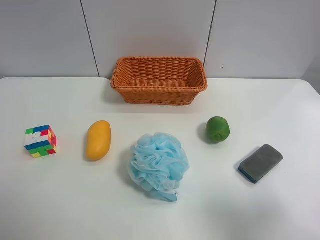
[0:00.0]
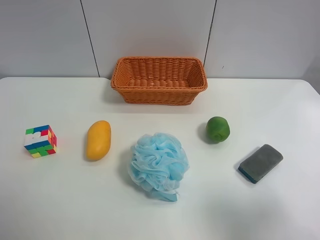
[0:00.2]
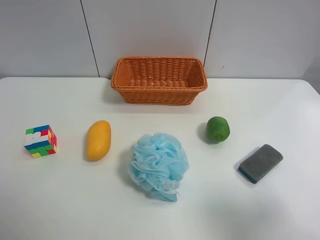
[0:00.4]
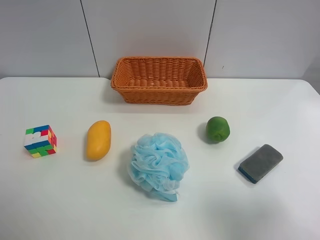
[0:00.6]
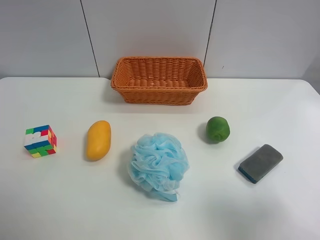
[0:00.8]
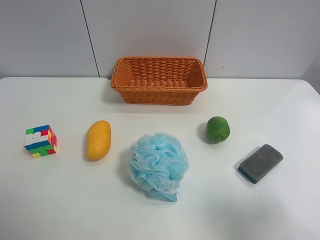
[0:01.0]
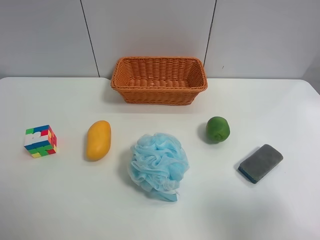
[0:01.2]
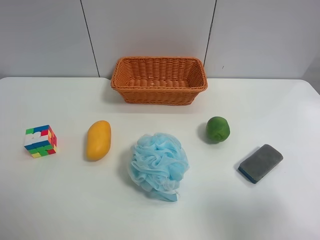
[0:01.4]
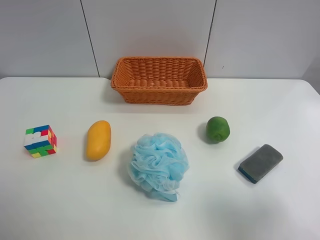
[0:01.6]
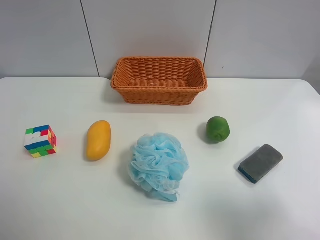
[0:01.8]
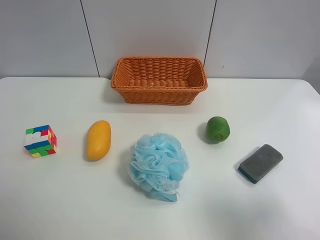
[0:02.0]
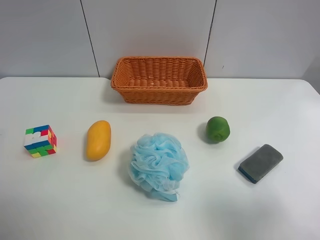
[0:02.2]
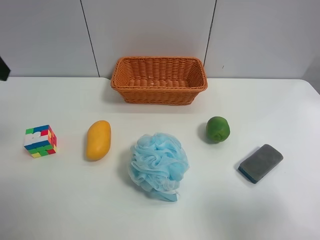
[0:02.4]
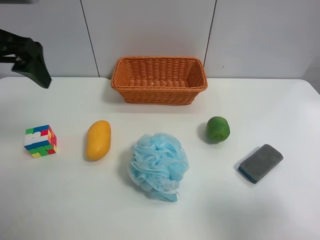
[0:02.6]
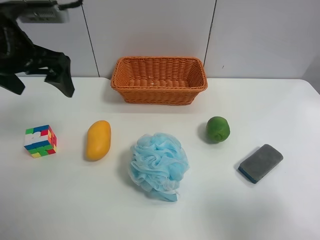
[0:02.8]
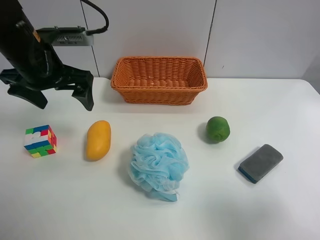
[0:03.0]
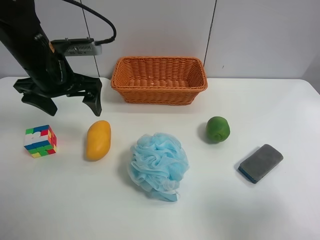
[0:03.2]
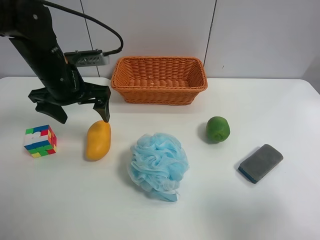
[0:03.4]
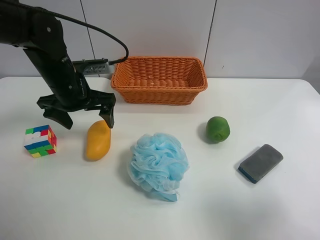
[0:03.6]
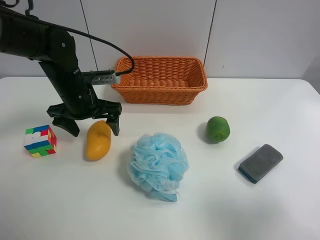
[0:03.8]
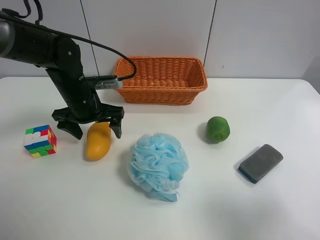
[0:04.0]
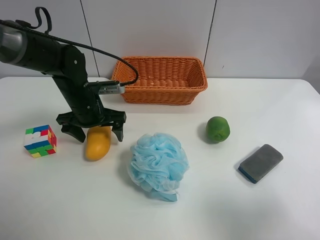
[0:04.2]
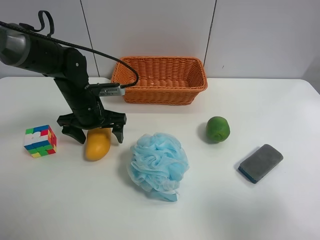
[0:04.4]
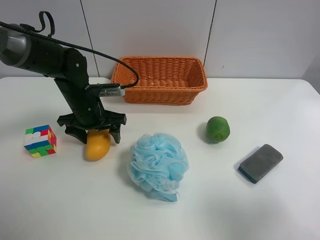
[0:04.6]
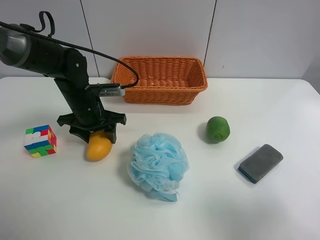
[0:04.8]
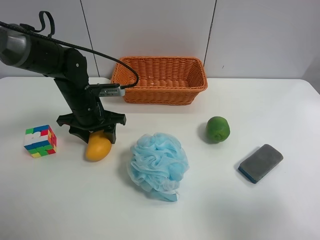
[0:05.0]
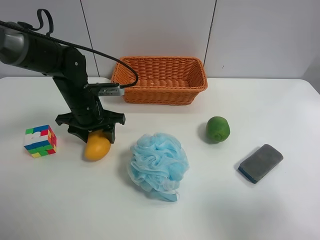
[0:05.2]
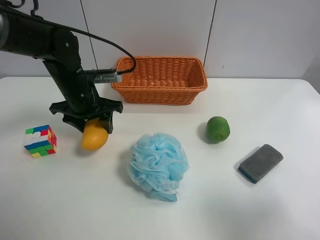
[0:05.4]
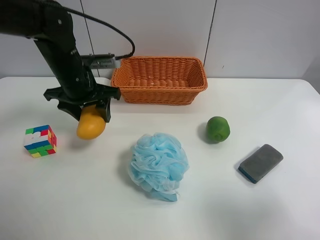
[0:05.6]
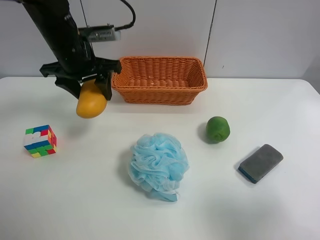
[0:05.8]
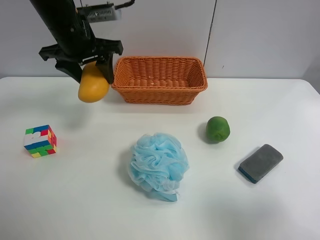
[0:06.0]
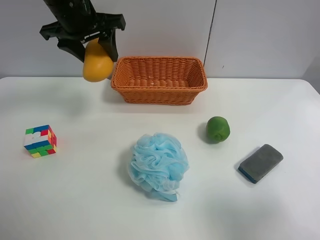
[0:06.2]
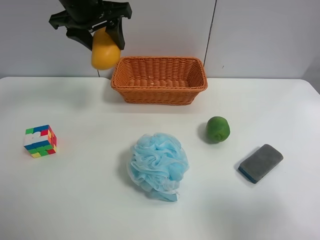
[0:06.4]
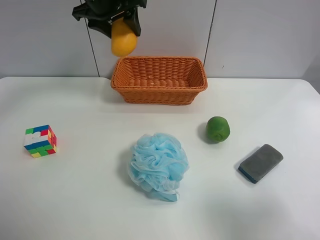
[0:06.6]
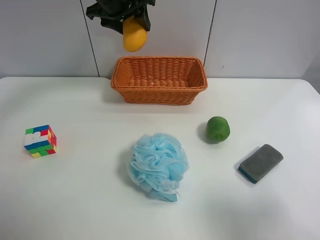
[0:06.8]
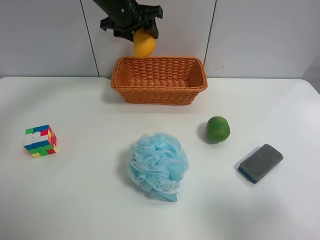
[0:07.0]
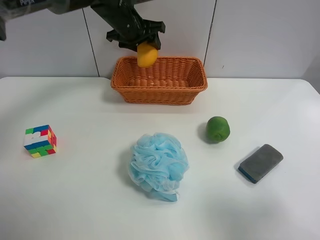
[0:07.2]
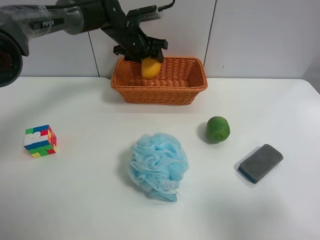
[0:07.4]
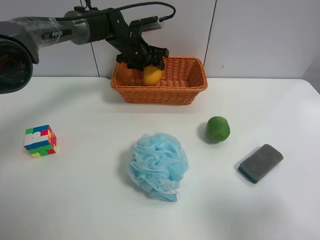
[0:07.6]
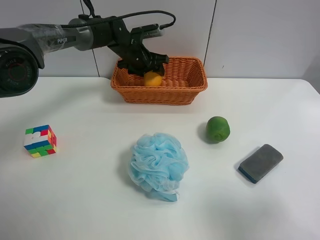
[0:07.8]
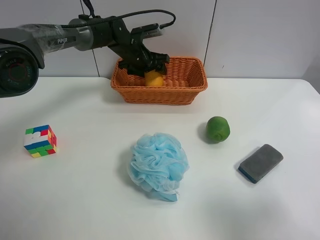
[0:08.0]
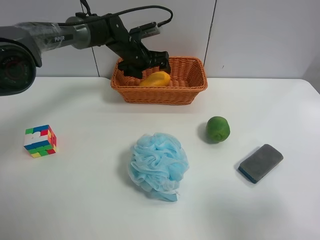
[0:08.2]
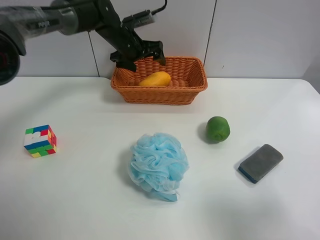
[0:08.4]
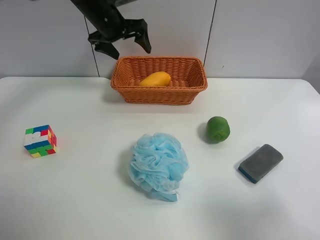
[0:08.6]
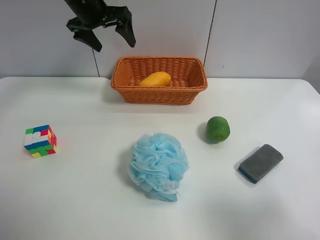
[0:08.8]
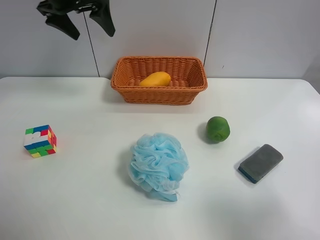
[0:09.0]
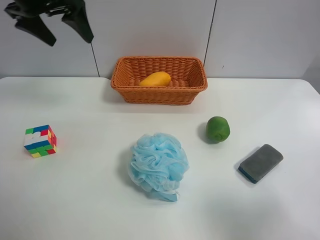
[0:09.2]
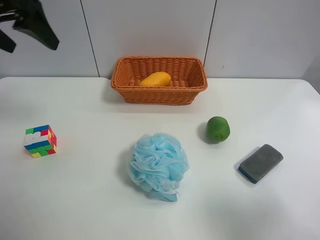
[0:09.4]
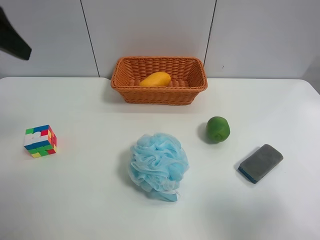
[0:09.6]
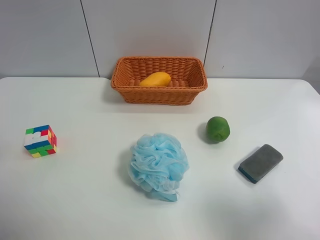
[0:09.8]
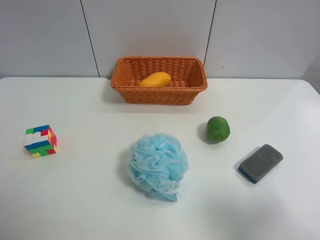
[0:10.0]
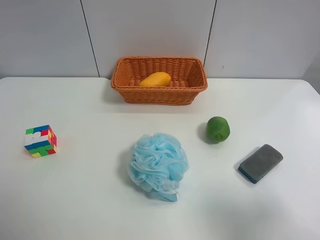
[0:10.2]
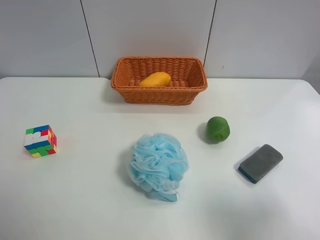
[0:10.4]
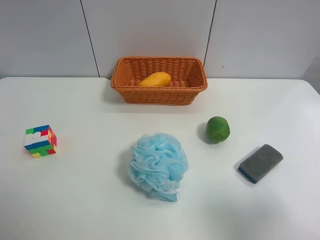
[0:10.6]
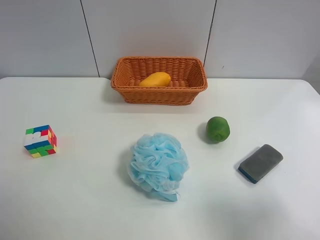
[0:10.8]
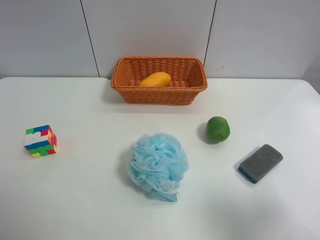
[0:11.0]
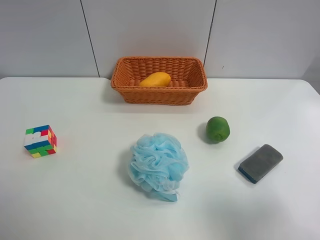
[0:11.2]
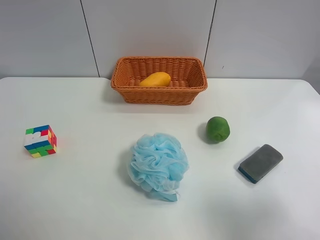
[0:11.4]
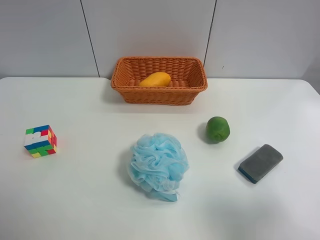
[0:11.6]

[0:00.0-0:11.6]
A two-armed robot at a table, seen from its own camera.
Task of the whole recording: use the left gripper to grab items from the table and place them in the basket.
Step, 0:00.0 to 0:04.8: Grasp the mango with the left gripper.
Step, 0:05.0 to 0:08.4: Place the mango into the basket with the left gripper.
0:01.4 to 0:02.8: The left gripper is displaced forward by about 30 cm.
0:02.8 to 0:04.4: The left gripper travels downward by approximately 15 cm.
0:04.4 to 0:05.8: The left gripper travels upward by roughly 15 cm, and closes.
0:05.8 to 0:07.2: The left gripper goes approximately 15 cm forward and to the right.
0:07.2 to 0:08.8: The left gripper moves to the left and upward, approximately 10 cm, and opens up.
0:08.8 to 0:10.2: The left gripper moves backward, some 40 cm.

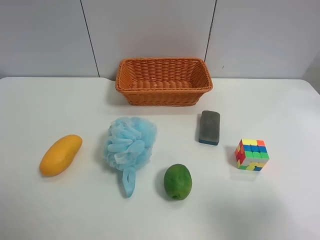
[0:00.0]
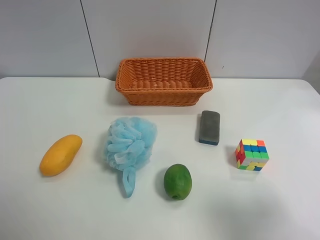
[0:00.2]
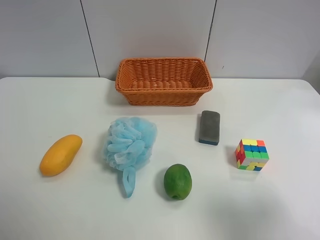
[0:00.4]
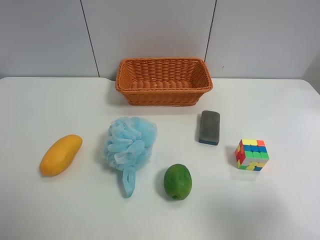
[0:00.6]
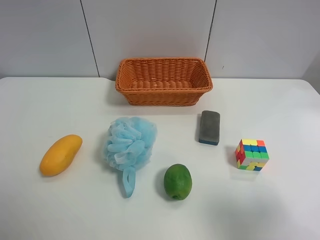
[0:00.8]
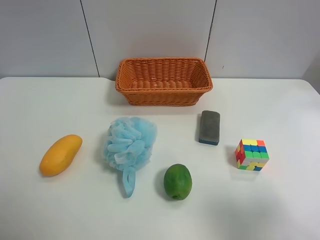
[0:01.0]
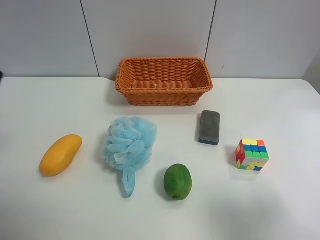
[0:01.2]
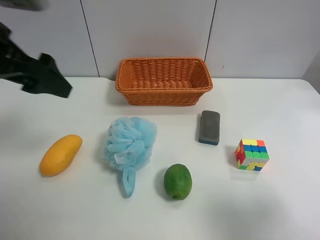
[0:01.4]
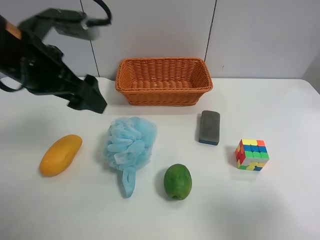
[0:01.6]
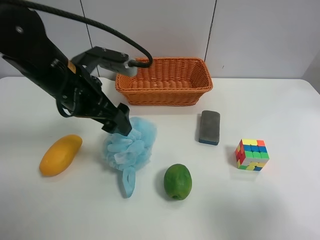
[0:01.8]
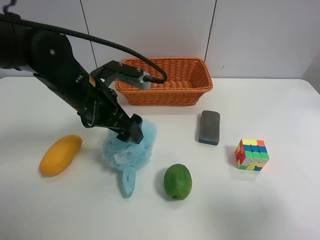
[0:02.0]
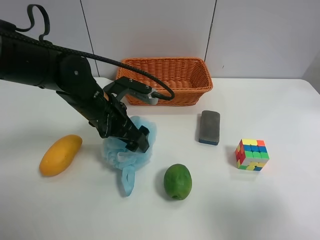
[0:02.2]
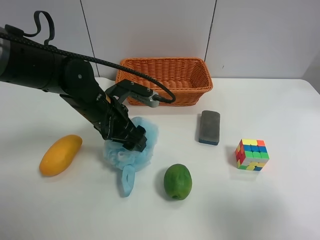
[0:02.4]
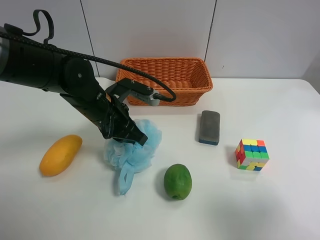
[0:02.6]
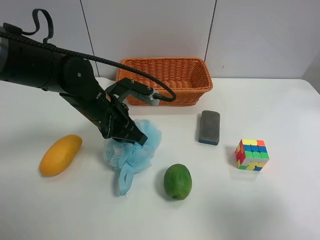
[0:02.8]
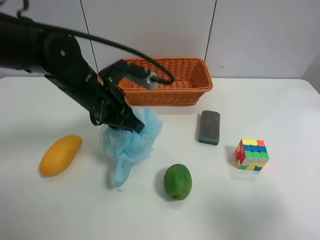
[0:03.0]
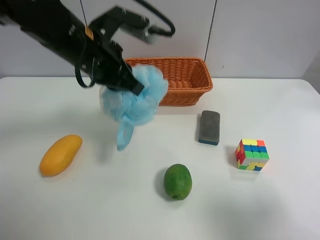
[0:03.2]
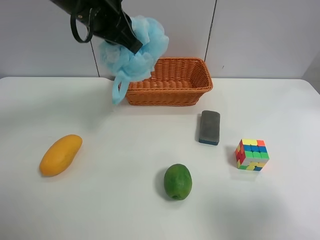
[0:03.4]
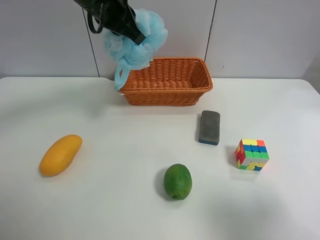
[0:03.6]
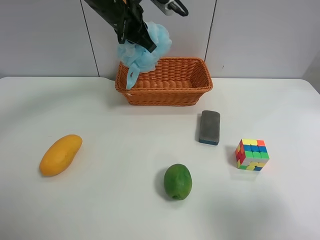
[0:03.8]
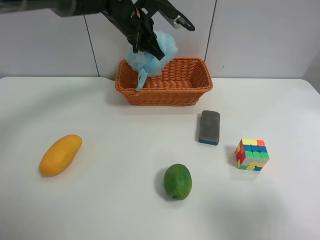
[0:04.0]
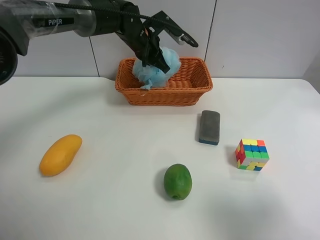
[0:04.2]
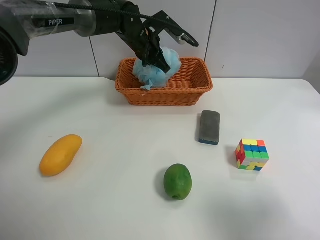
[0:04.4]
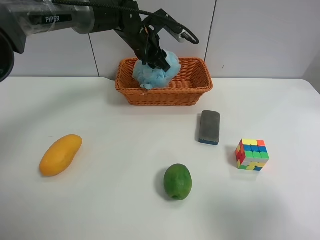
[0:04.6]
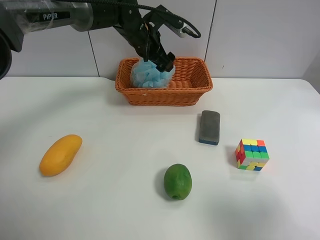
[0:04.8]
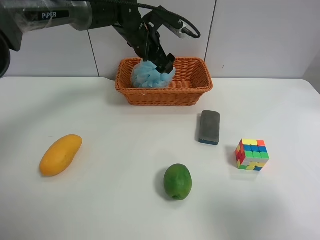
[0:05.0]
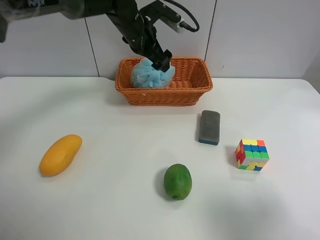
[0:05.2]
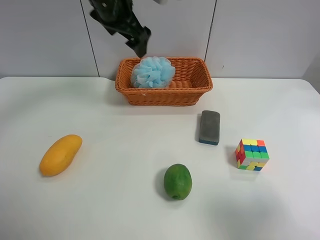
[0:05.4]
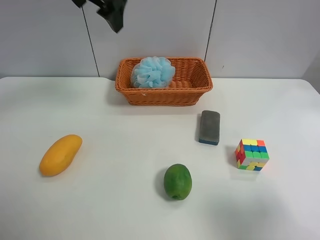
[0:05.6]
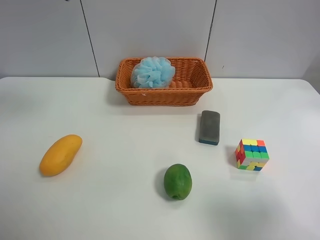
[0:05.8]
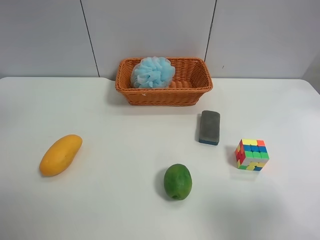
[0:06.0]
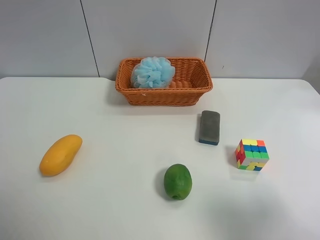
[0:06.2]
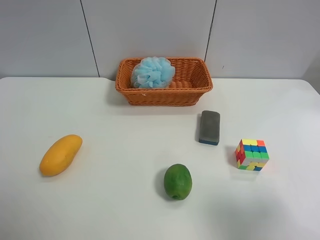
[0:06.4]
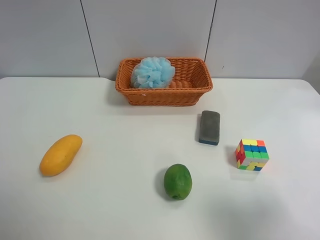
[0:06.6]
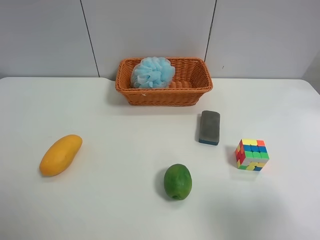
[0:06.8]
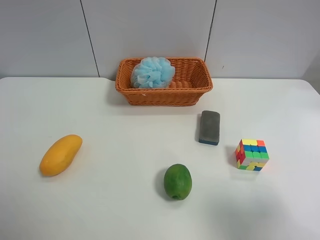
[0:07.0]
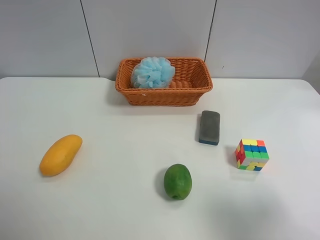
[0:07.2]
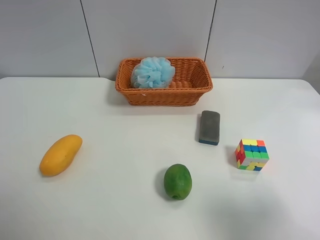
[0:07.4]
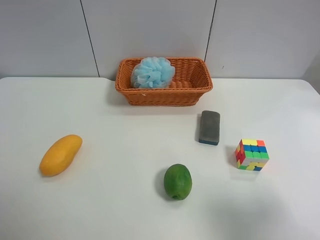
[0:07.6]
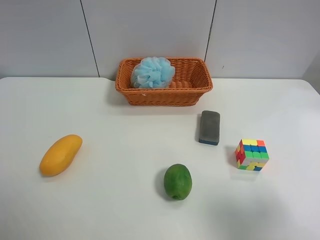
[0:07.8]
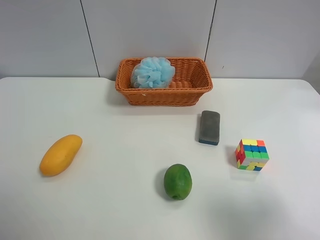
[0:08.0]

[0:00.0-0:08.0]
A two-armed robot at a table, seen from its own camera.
Task of the whole recording: use the left gripper to grab items from the table and place them in the basket.
Step, 0:00.0 to 0:02.6: Grasp the Shower puff with the left gripper.
Step, 0:02.8 to 0:04.8: Place the Shower puff into the basket with the left gripper.
0:00.0 to 0:01.6: The left gripper is displaced forward and to the right by approximately 30 cm.
0:01.6 to 0:03.2: The left gripper moves to the right, some 5 cm, goes downward and returns, approximately 10 cm each way, and closes up.
0:03.2 to 0:04.8: The left gripper travels forward by approximately 20 cm, and opens its fingers.
0:04.8 to 0:06.4: The left gripper goes about 50 cm backward, to the left and upward.
